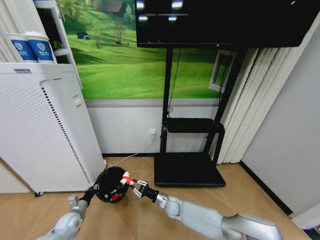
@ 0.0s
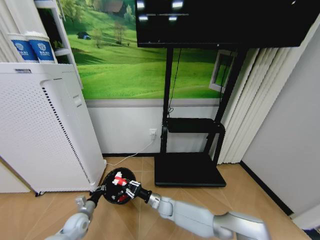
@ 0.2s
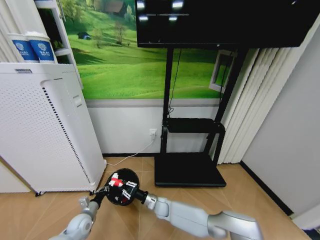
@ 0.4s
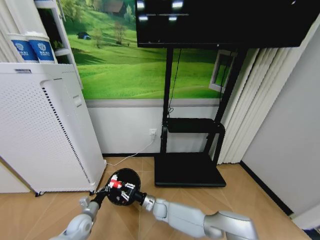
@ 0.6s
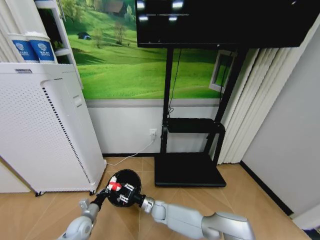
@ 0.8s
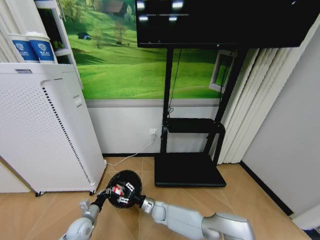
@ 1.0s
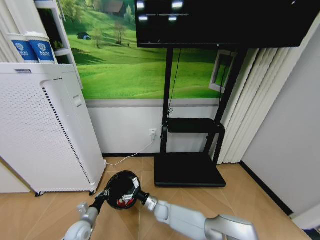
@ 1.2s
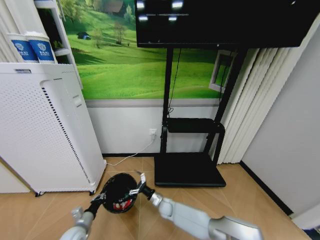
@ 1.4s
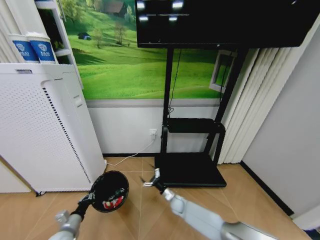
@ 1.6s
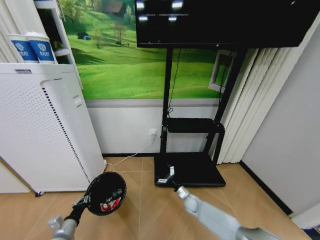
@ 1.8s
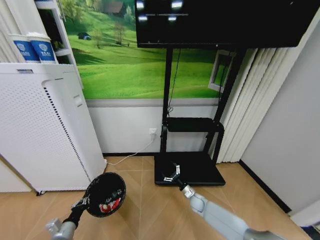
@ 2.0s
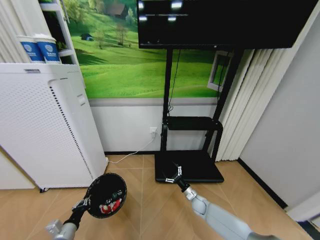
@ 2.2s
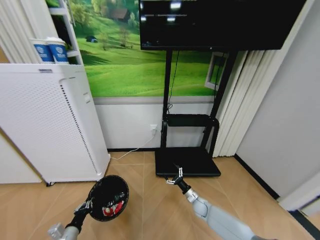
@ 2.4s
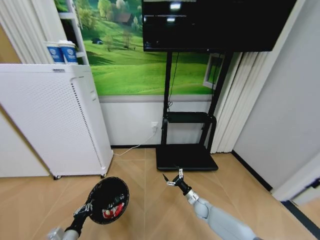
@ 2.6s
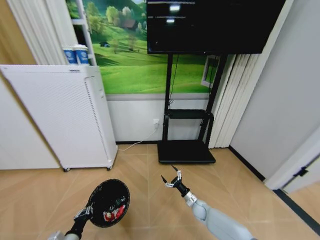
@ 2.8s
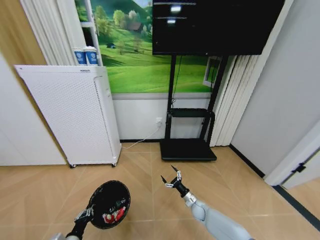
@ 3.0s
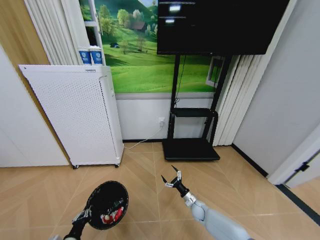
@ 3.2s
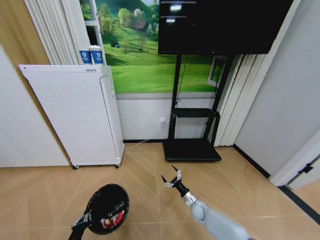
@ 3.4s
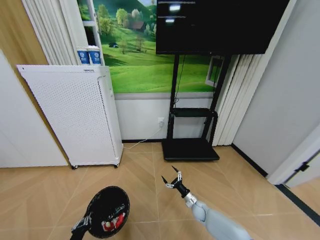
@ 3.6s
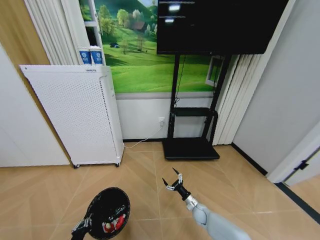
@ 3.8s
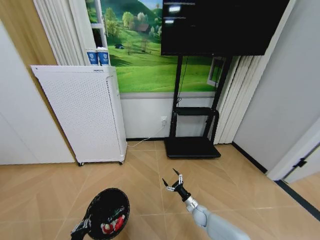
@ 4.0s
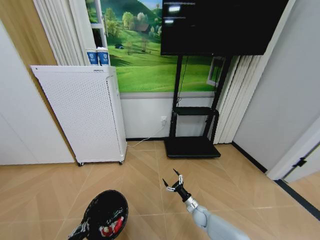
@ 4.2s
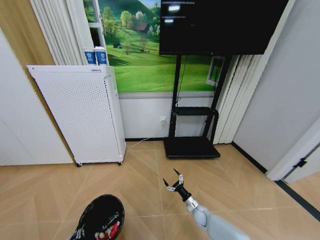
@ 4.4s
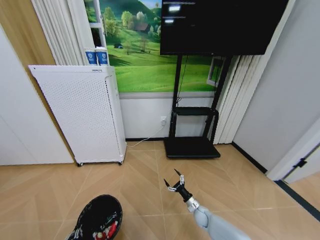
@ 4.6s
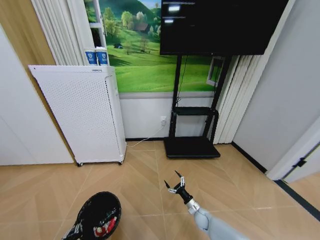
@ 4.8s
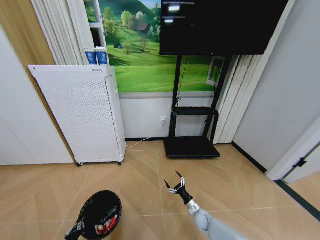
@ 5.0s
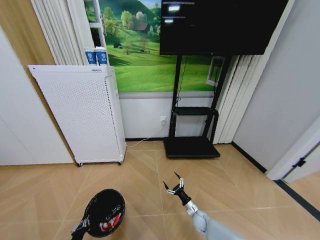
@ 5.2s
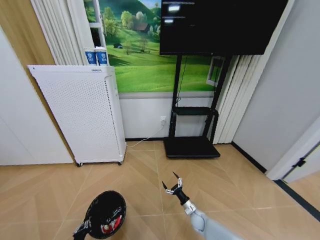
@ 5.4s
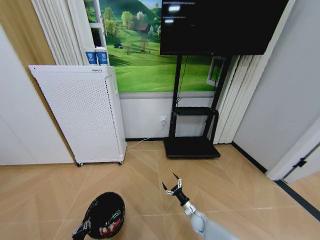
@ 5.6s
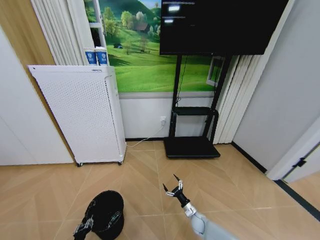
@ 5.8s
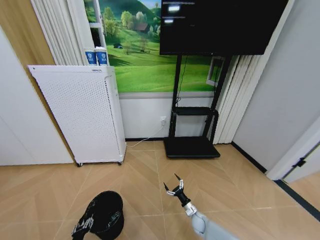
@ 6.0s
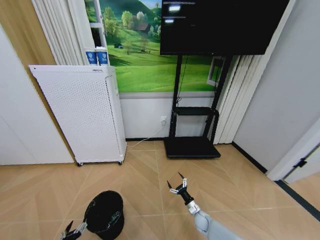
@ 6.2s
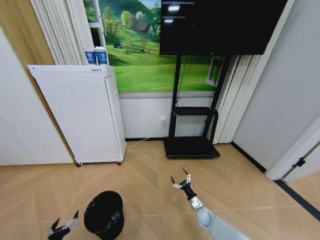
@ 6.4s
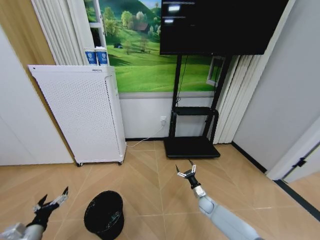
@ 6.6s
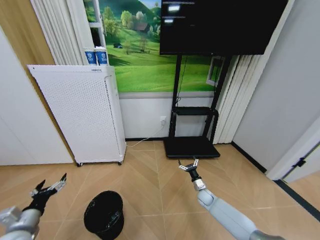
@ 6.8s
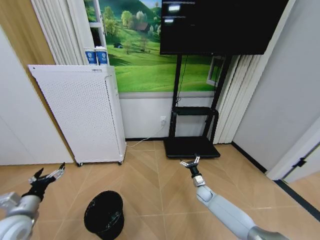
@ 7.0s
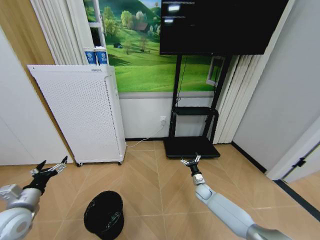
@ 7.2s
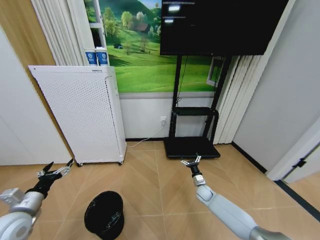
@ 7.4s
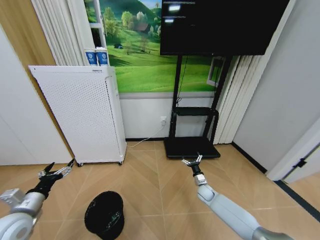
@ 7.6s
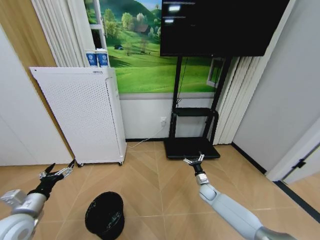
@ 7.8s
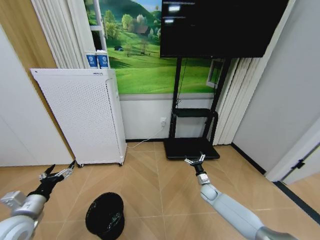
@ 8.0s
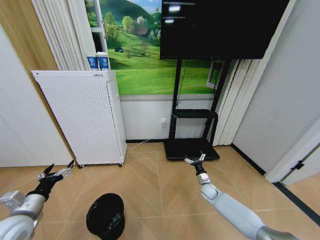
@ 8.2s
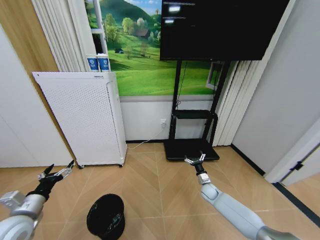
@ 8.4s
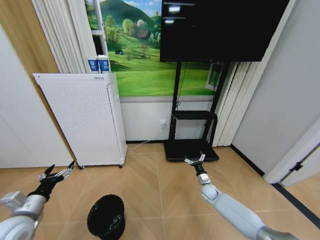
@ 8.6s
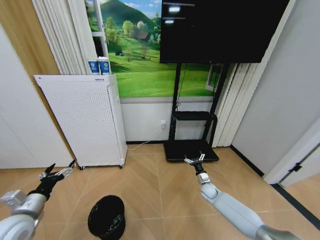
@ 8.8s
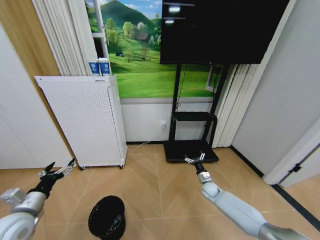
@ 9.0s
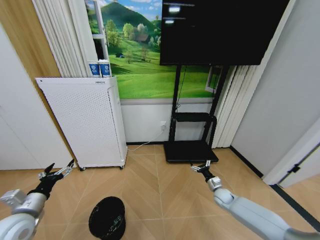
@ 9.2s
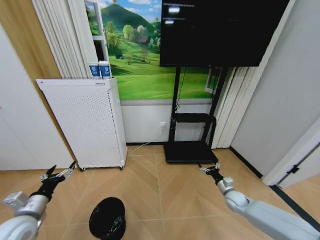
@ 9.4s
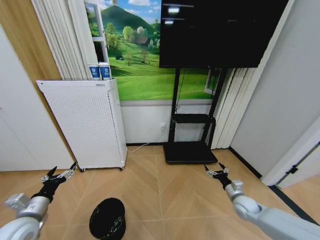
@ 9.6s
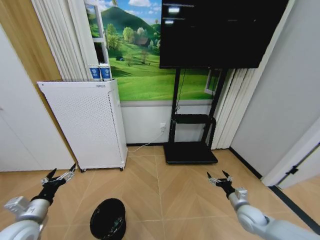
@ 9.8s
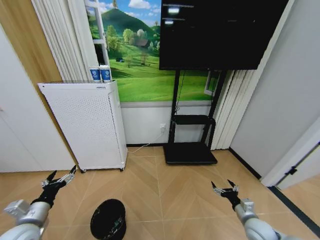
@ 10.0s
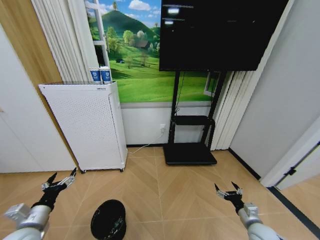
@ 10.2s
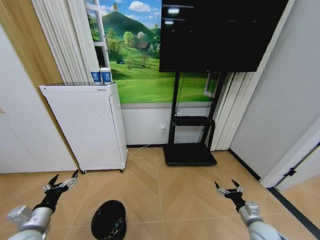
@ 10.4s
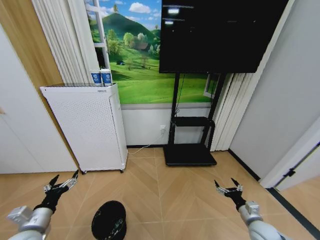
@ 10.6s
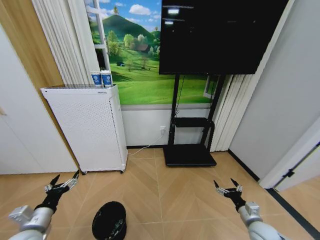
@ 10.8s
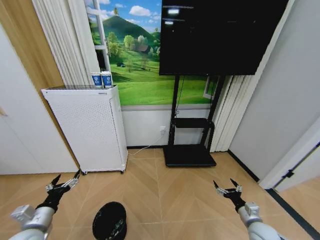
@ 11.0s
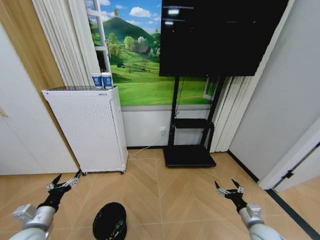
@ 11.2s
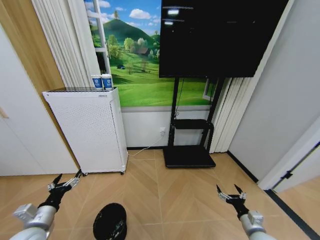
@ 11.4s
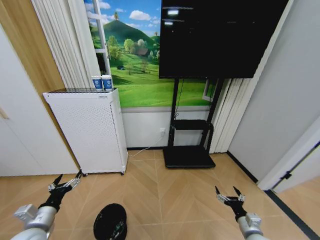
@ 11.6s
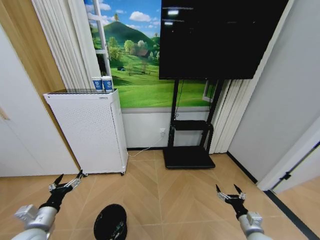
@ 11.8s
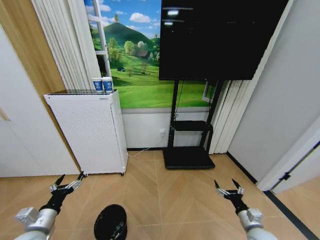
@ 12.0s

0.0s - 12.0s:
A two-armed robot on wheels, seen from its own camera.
Task of the whole recording: Pick up the trash bin and place the garbage on the floor into it.
0.0s - 1.6s: The left gripper shifts approximately 5 cm backward, while the right gripper moves roughly 10 cm to the left and comes back, and opens its fingers.
1.6s - 3.0s: The right gripper is displaced to the right by roughly 15 cm; the left gripper shifts approximately 10 cm backward.
3.0s - 4.4s: The left gripper heads backward, covering roughly 5 cm.
4.4s - 6.0s: The left gripper moves downward and forward, approximately 10 cm, and opens up.
6.0s - 7.6s: The left gripper heads upward, covering some 30 cm, and opens. Meanwhile the right gripper shifts about 15 cm upward and forward.
7.6s - 9.0s: The grippers move only a little.
9.0s - 10.4s: The right gripper is displaced backward and to the right by approximately 25 cm, while the left gripper moves some 5 cm.
10.4s - 12.0s: The grippers stay close to where they were, moving slightly.

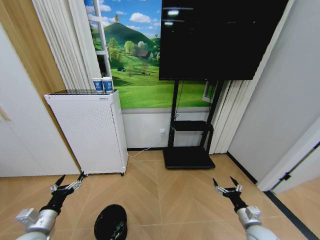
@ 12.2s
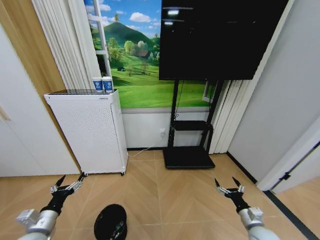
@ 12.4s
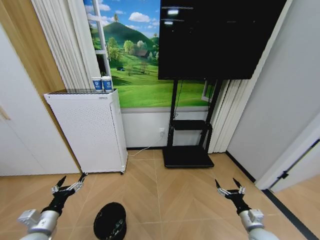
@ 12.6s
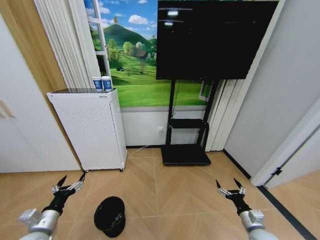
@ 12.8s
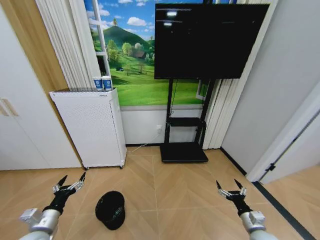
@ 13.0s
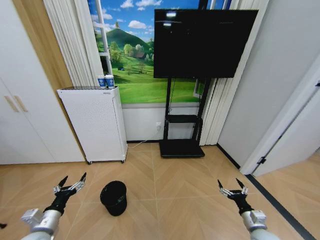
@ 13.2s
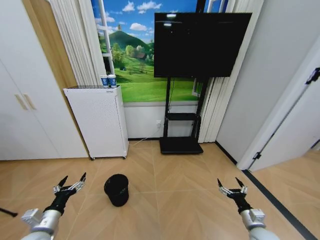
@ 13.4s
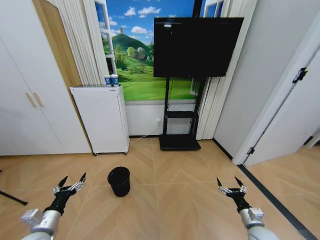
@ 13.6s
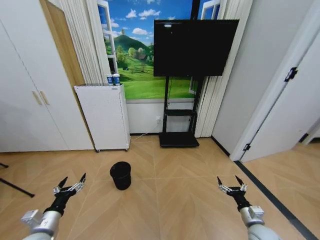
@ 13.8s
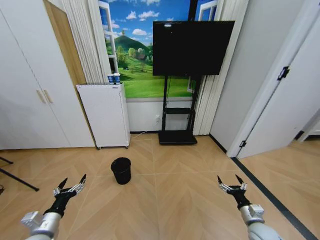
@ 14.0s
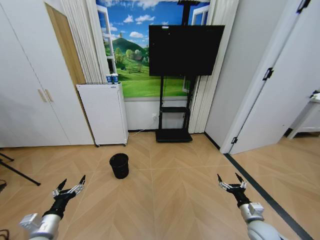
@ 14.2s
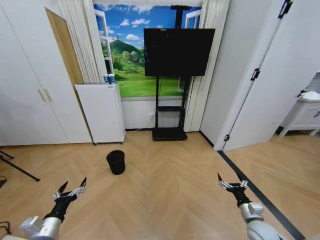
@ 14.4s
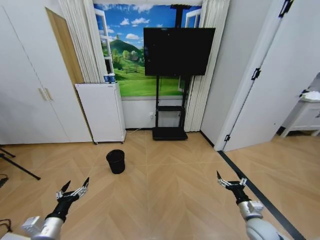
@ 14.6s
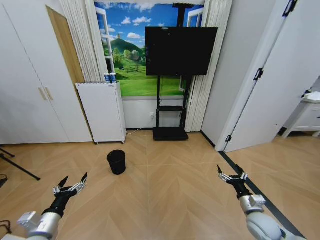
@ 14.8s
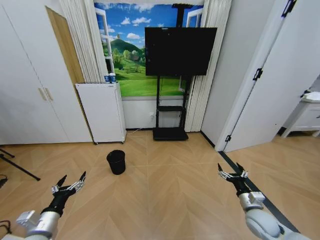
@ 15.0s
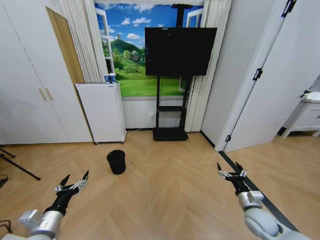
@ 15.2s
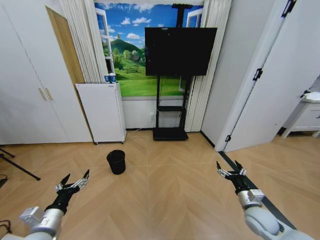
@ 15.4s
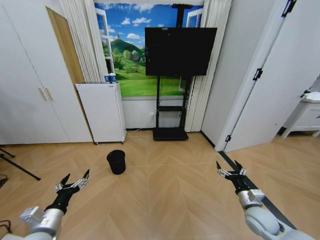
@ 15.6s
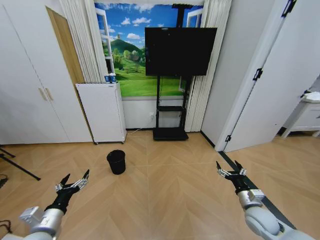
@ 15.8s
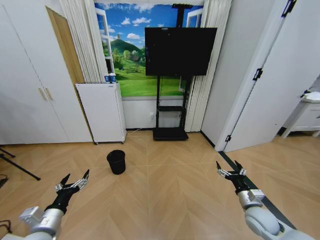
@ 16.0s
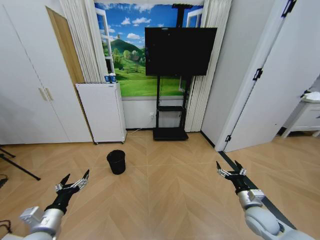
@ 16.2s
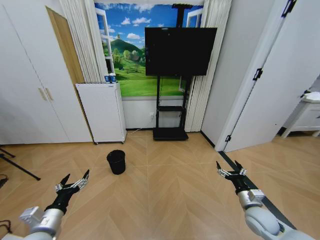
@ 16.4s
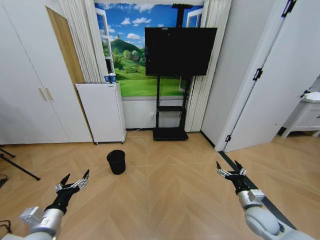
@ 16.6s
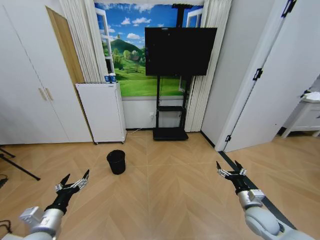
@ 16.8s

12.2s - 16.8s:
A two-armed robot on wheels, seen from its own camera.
Task of the whole recording: Pick up the trash bin and place the garbage on the floor into it.
13.8s - 15.2s: The left gripper shifts by some 5 cm, while the right gripper heads upward, covering roughly 5 cm.
15.2s - 16.8s: The two grippers keep their place.
